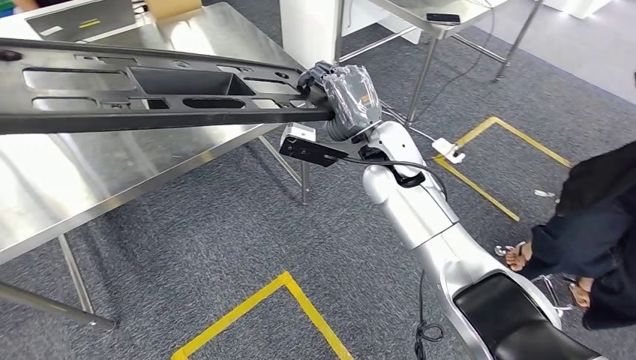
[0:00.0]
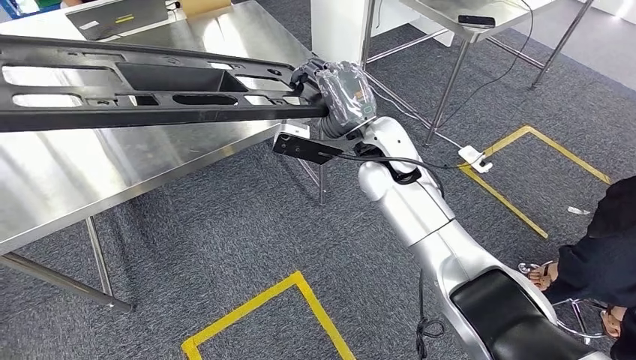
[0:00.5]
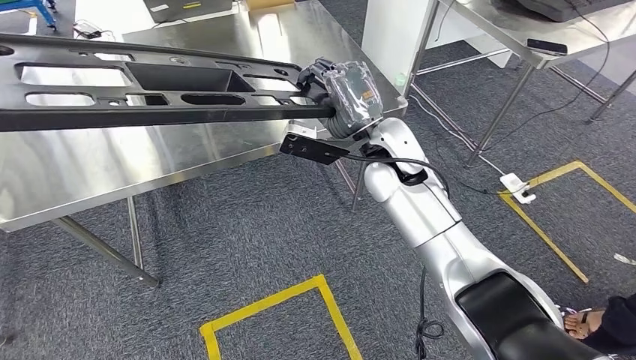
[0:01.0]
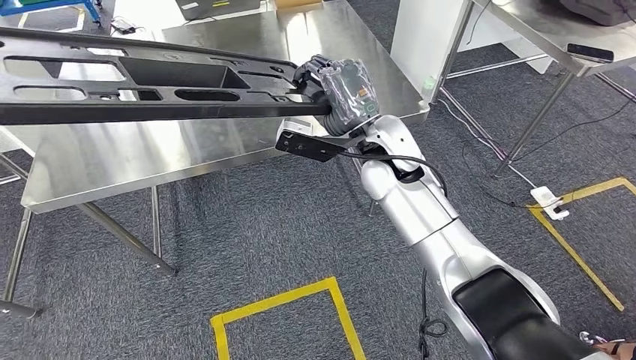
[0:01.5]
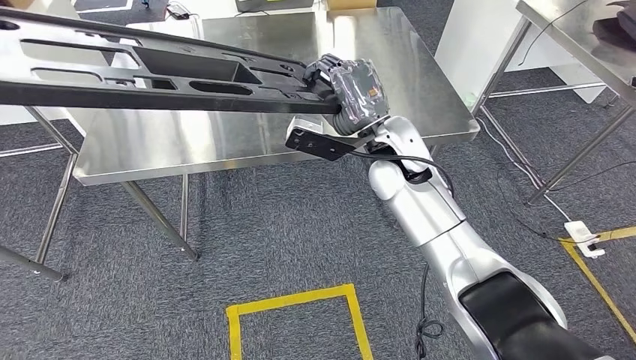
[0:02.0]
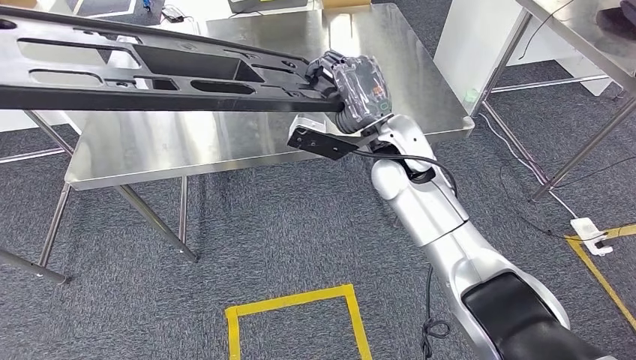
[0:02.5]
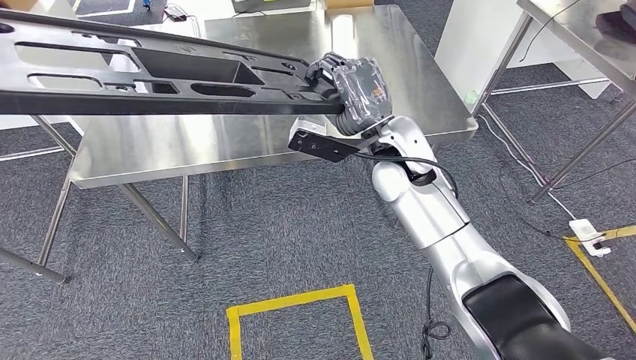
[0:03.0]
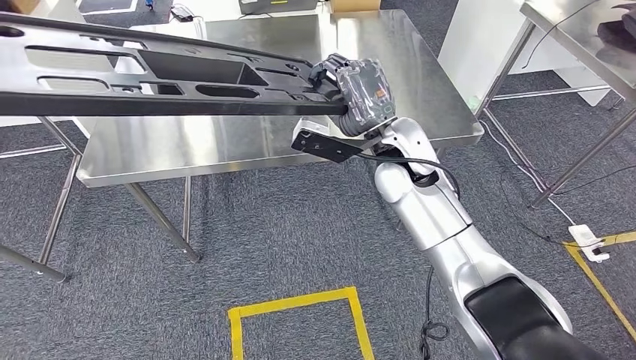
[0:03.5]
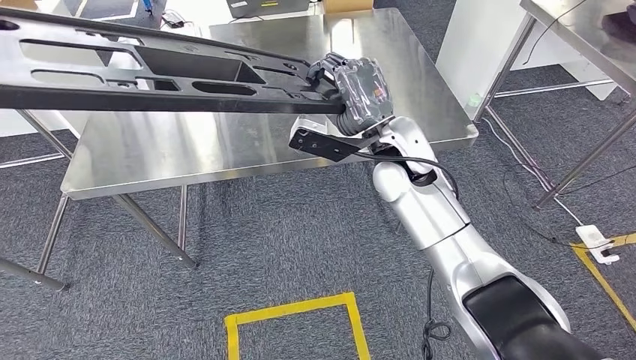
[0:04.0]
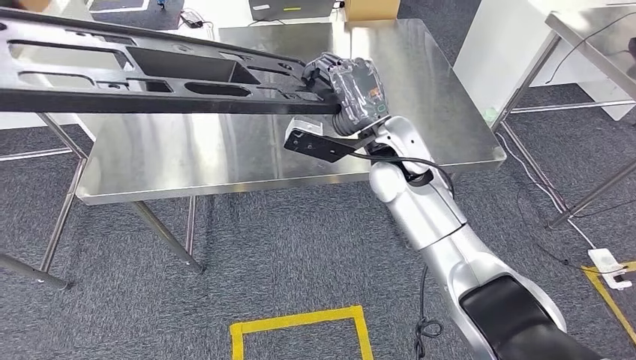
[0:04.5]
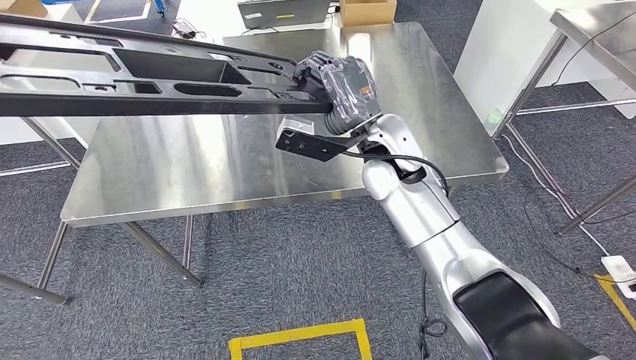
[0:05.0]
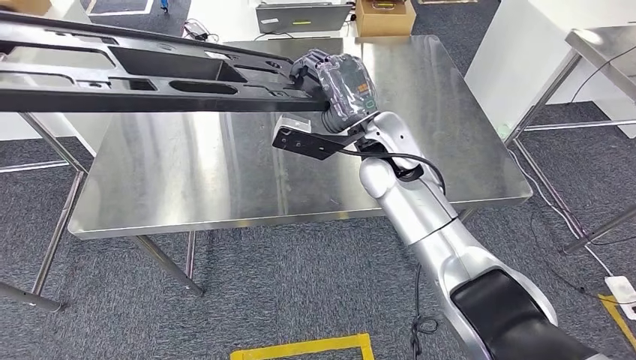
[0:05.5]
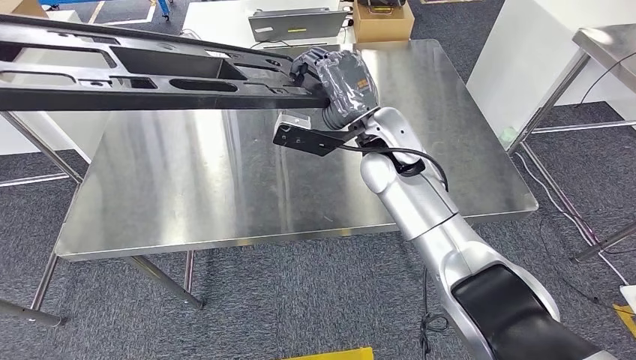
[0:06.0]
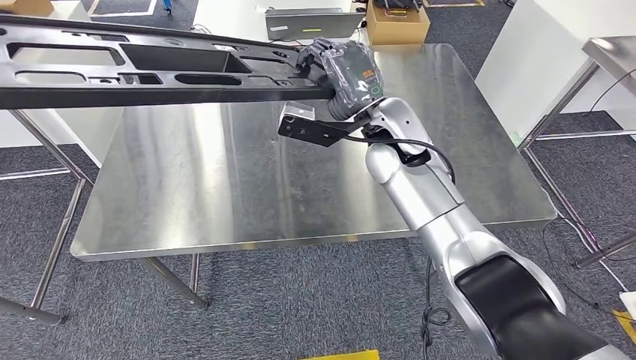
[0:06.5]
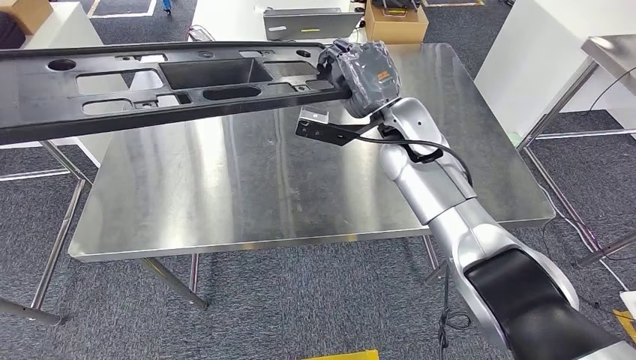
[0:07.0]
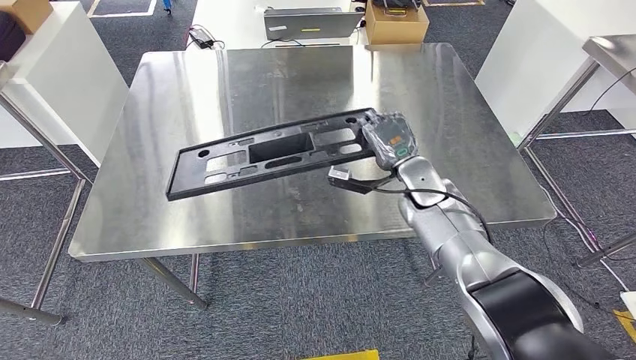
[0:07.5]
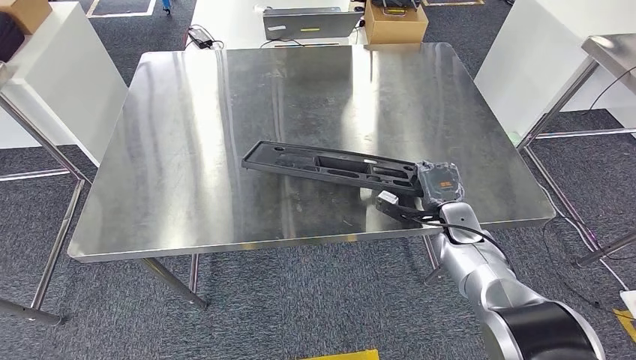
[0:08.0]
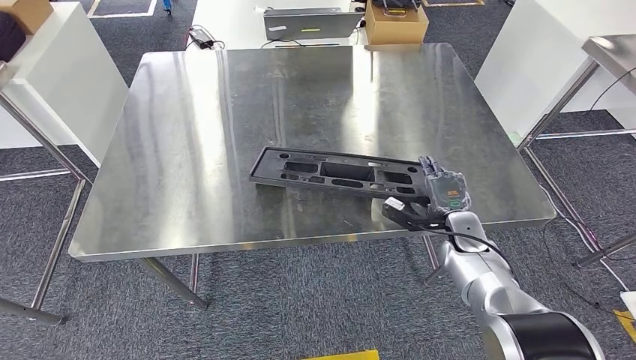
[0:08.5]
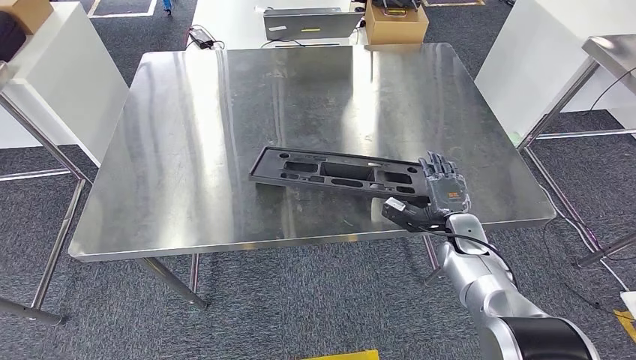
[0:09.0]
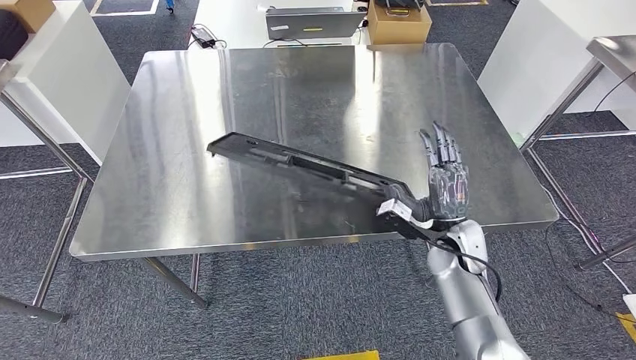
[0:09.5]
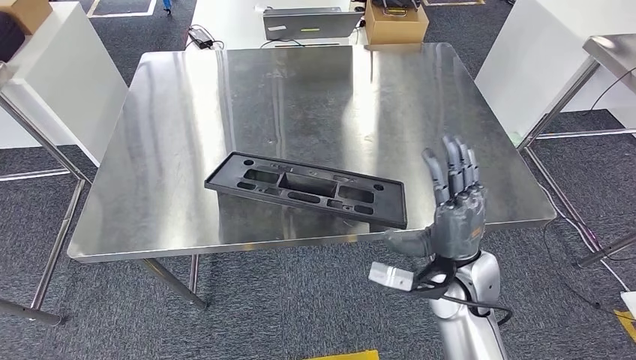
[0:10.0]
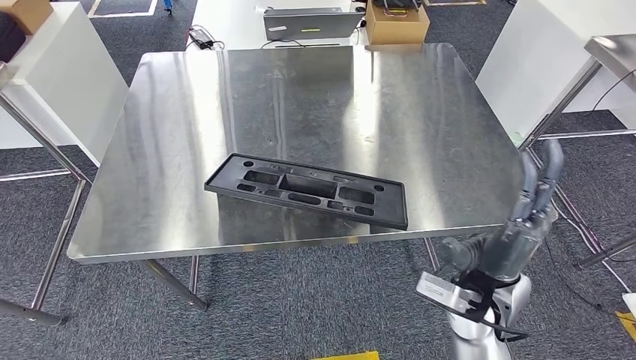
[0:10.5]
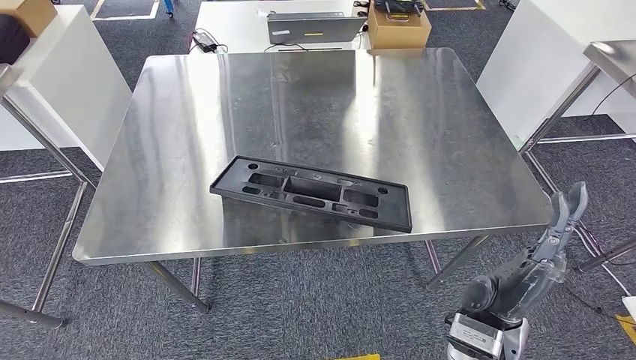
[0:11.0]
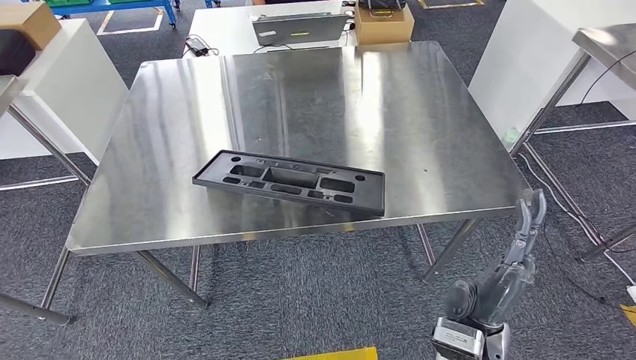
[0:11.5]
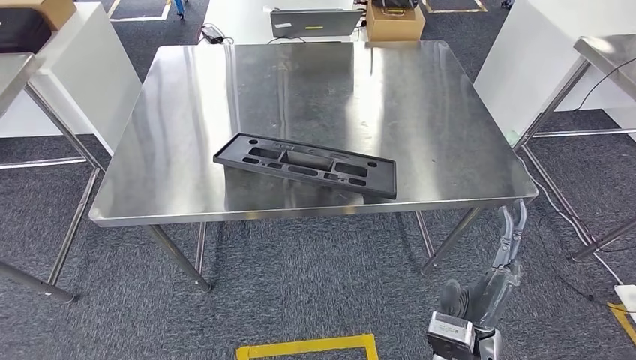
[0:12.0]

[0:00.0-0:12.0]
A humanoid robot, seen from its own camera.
0:08.0 to 0:10.0: The right hand goes roughly 20 cm backward, upward and to the left.

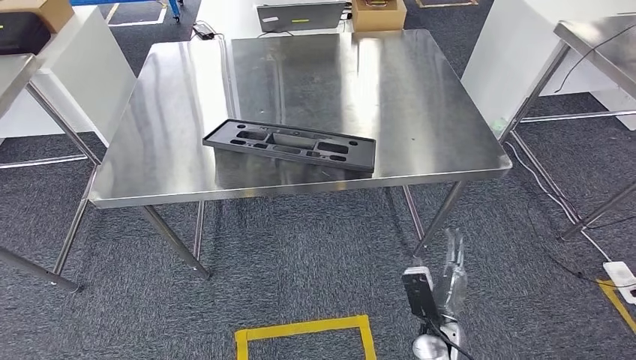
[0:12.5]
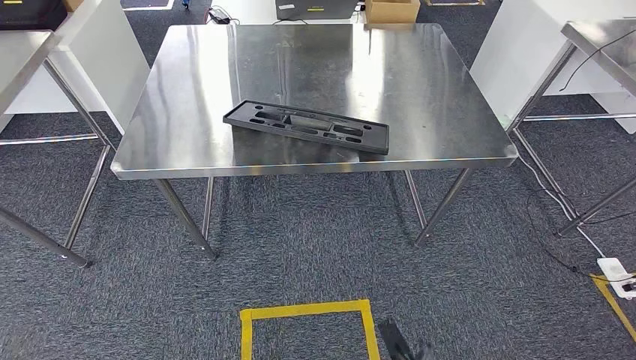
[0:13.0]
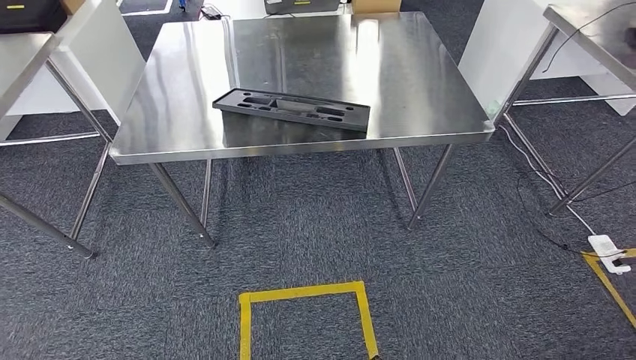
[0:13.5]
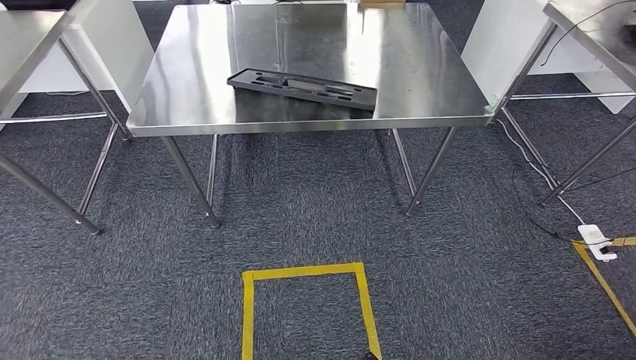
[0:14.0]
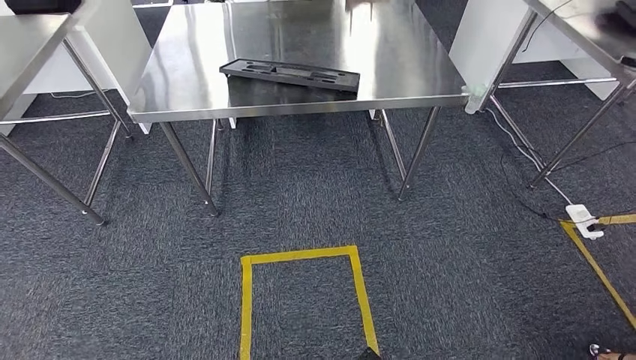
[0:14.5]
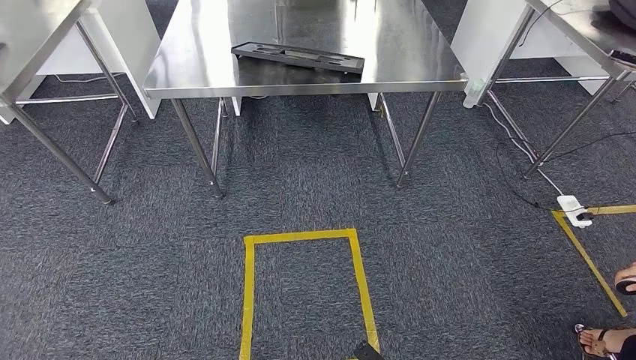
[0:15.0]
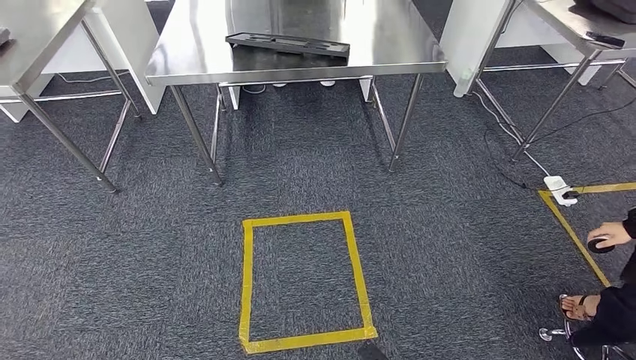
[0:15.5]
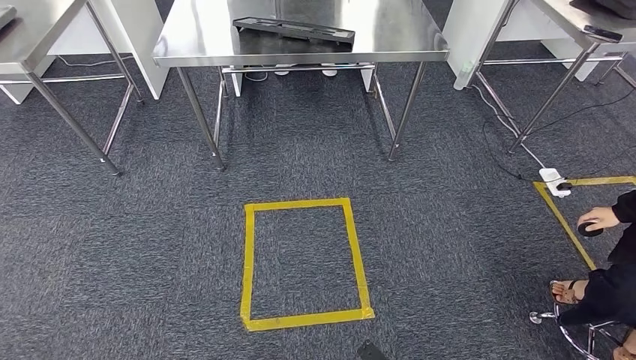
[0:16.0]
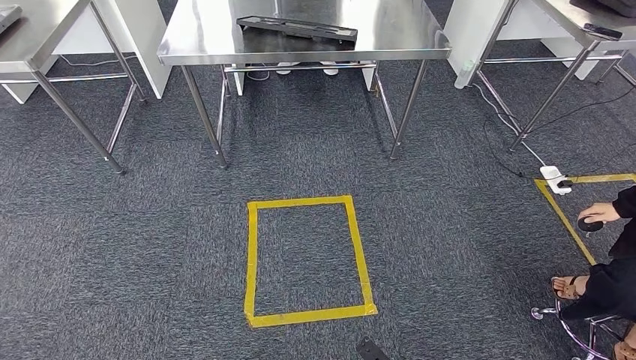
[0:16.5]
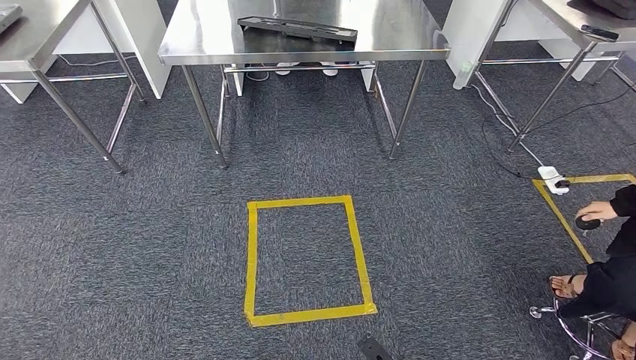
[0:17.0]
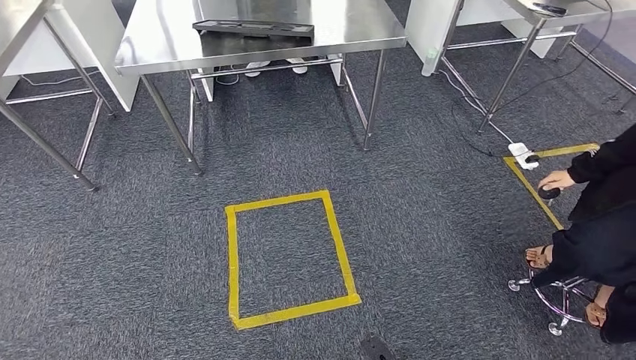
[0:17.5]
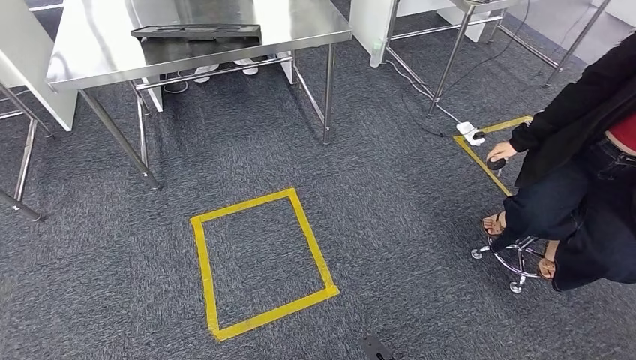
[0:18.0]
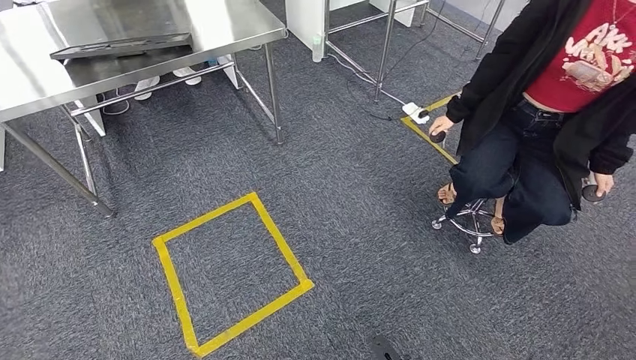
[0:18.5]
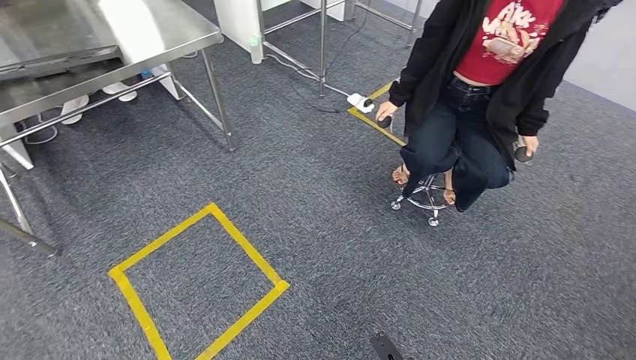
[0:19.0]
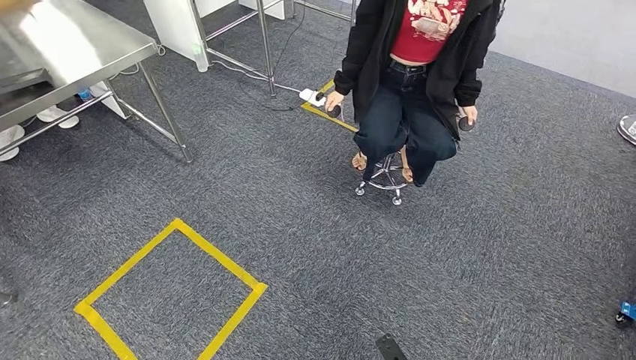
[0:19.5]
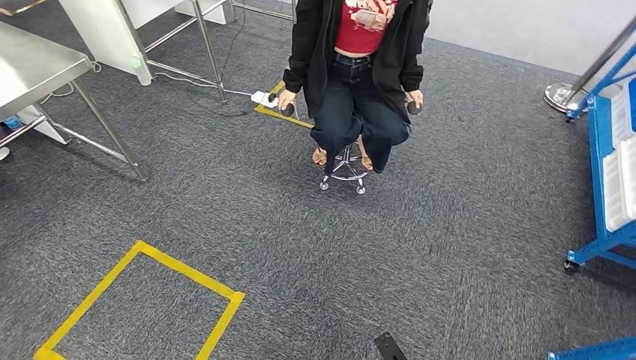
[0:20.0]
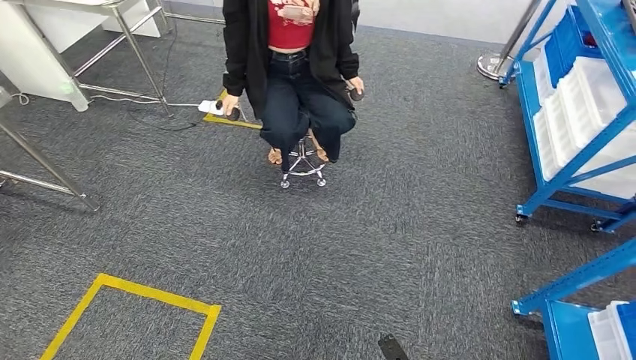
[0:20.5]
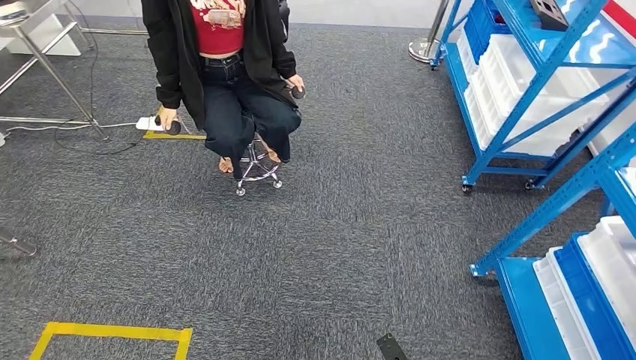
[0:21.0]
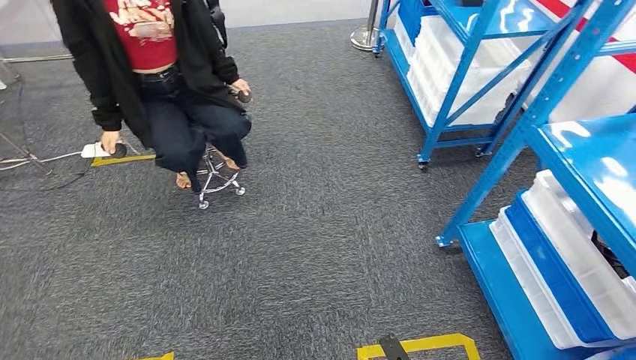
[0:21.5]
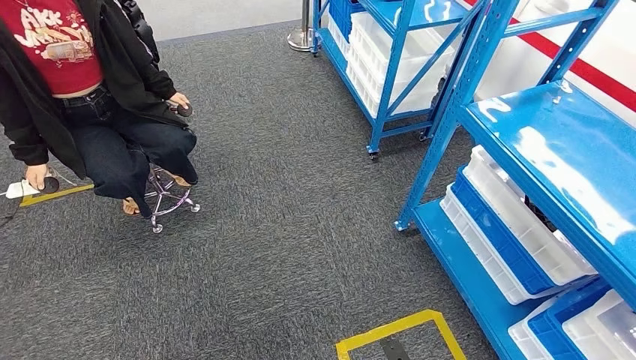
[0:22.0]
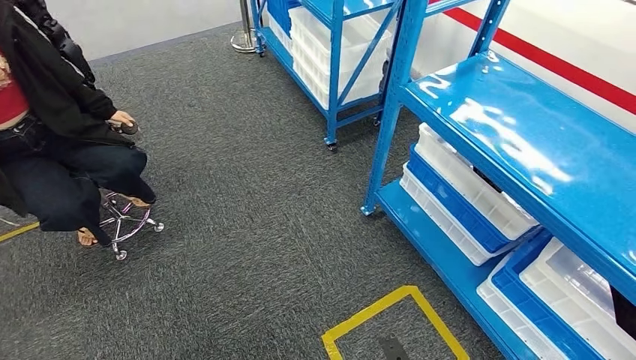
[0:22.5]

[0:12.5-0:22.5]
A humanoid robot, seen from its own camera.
Step, 0:12.5 to 0:14.5: Insert the large material into the corresponding slot on the workbench.
